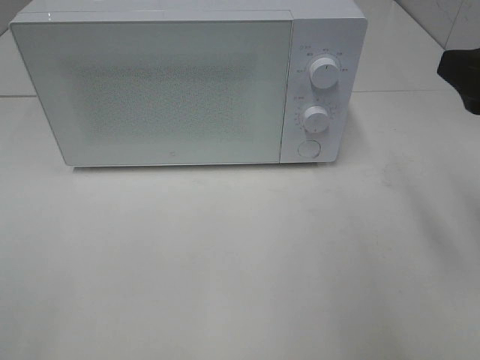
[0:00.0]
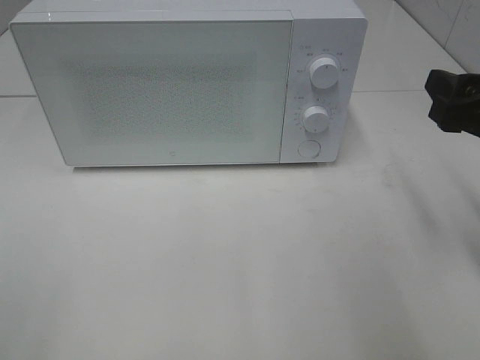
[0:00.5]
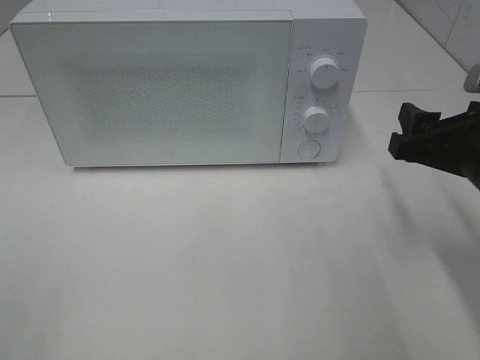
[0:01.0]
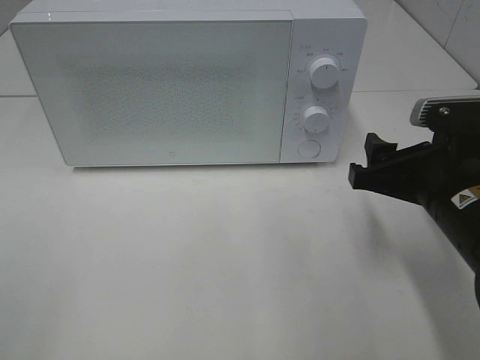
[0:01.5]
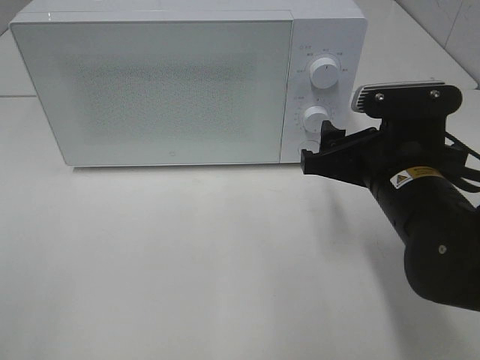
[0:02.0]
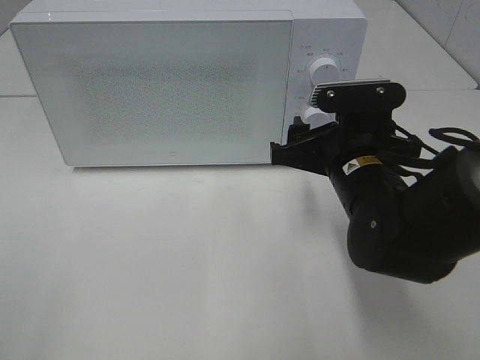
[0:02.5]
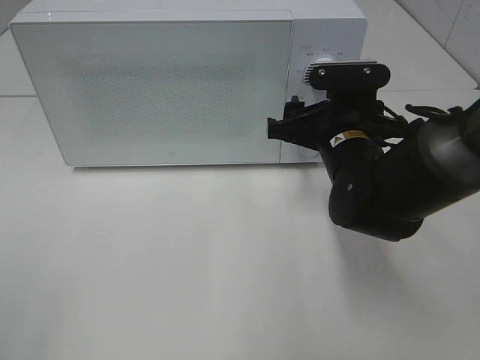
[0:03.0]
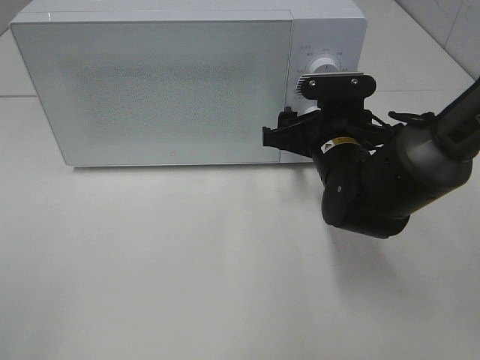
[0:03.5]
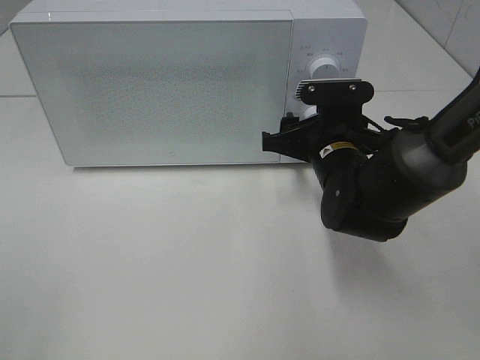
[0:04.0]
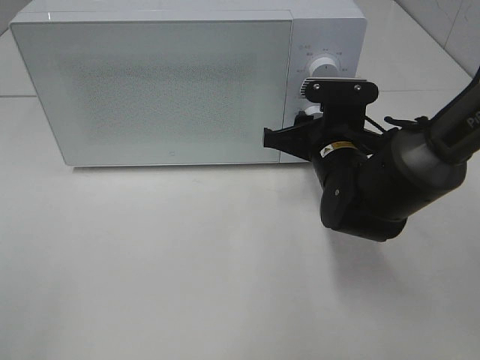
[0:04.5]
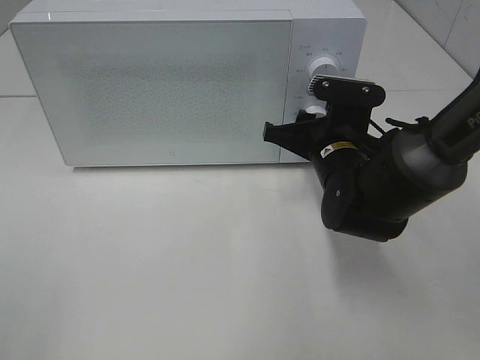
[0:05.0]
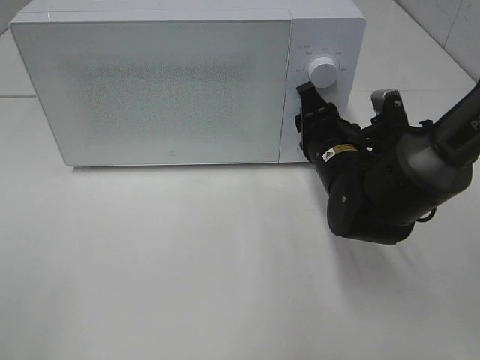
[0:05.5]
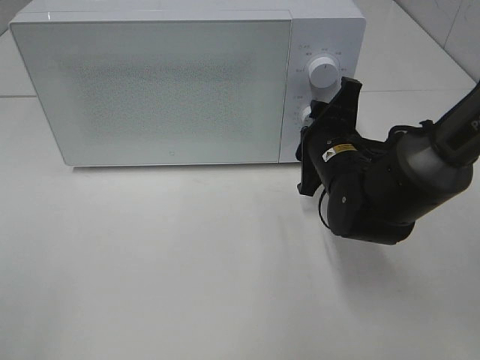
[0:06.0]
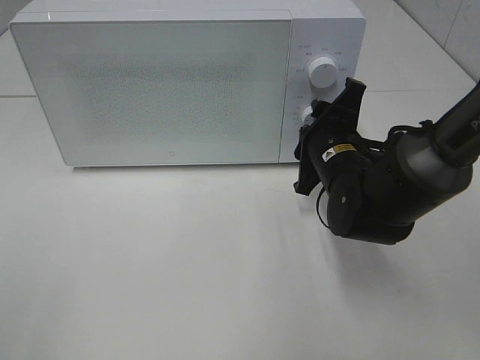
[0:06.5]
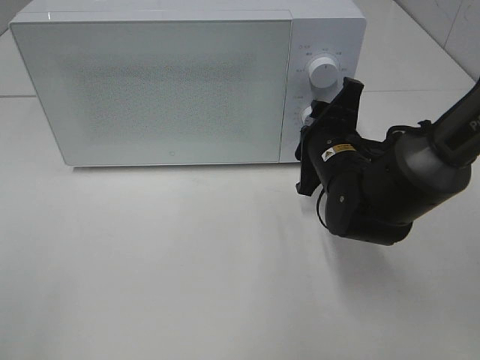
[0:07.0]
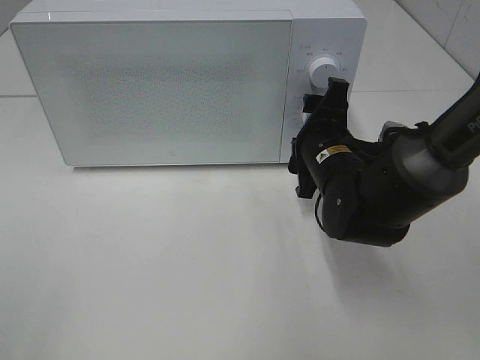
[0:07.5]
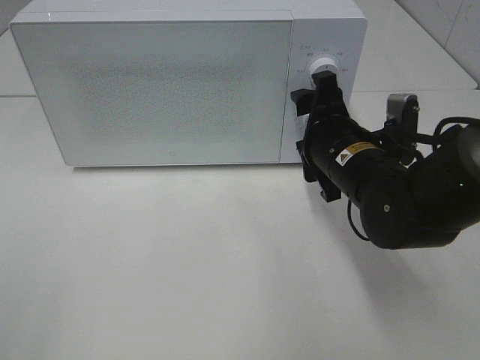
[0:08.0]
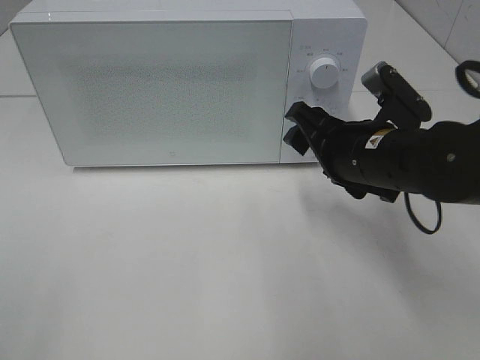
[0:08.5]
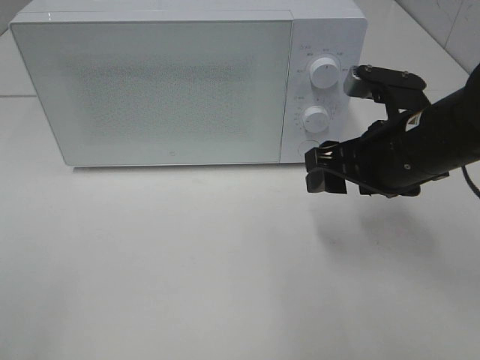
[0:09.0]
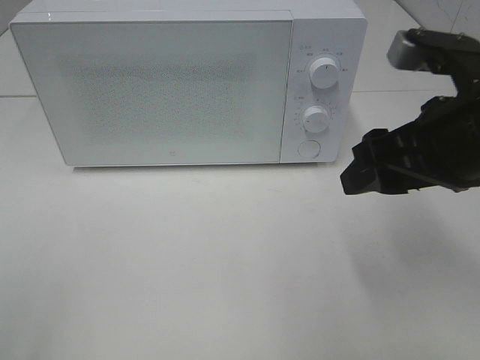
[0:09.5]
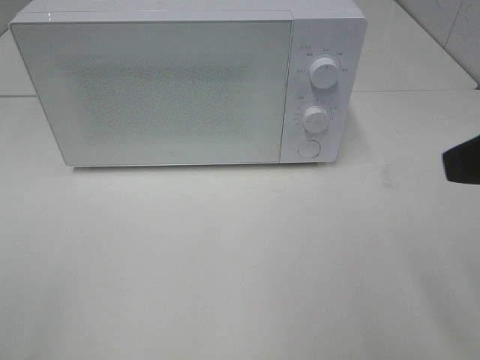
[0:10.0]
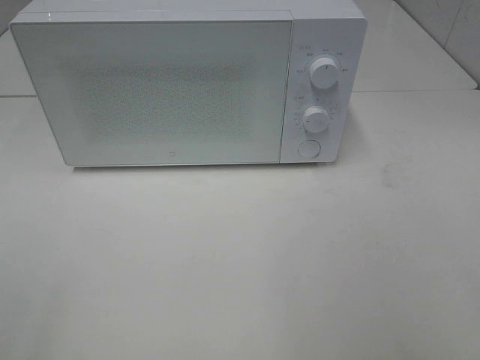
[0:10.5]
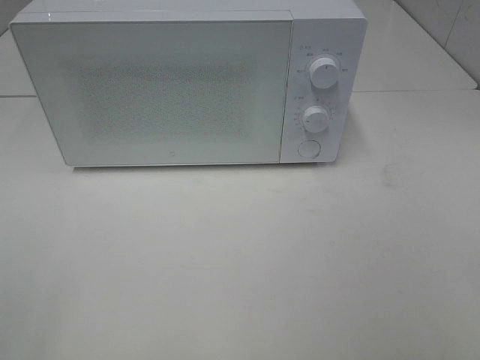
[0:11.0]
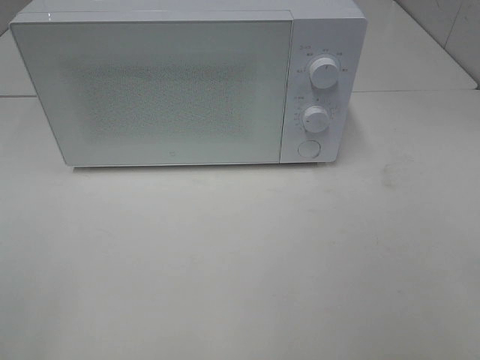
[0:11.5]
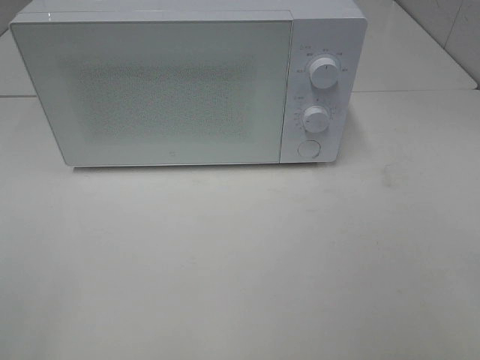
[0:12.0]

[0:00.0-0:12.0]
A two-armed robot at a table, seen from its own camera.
Task of the whole recording: Heat the burger.
Step, 0.0 to 7.0 s: Right hand: twist timer button.
0.0 to 2.0 s: The right gripper shifts roughly 15 cm downward and to the left.
2.0 to 4.0 s: The right gripper travels forward by roughly 10 cm.
8.0 to 10.0 s: The right gripper goes about 25 cm upward, backward and to the right.
10.0 to 12.0 s: The right gripper is displaced backward by about 15 cm.

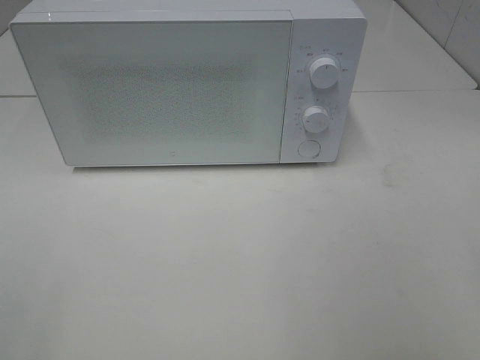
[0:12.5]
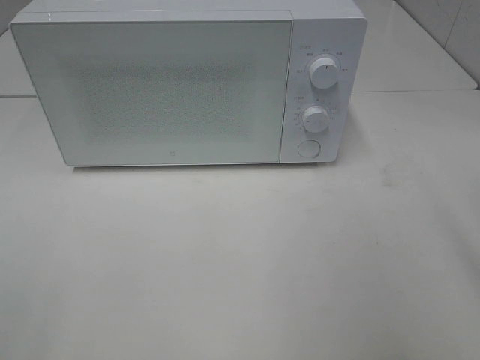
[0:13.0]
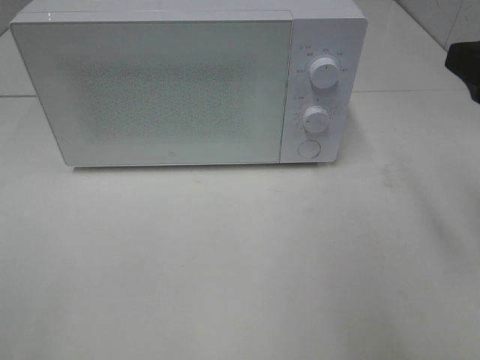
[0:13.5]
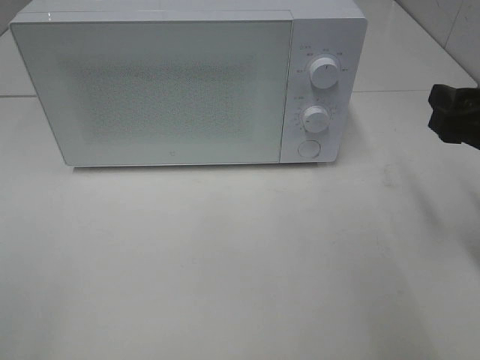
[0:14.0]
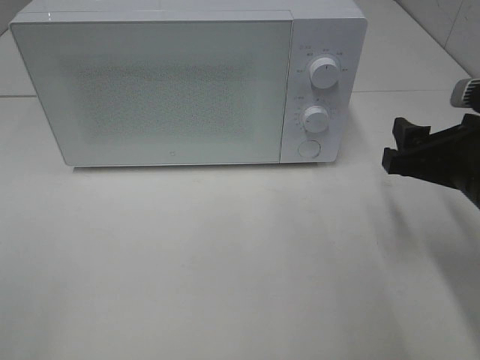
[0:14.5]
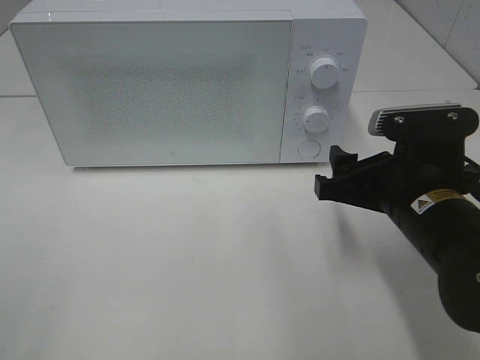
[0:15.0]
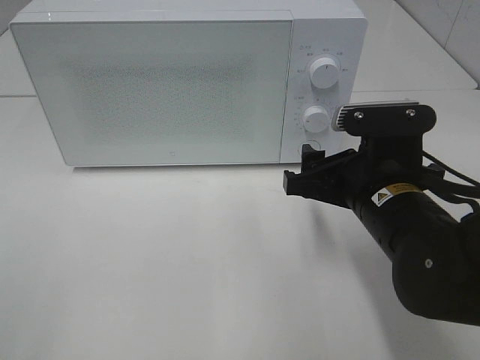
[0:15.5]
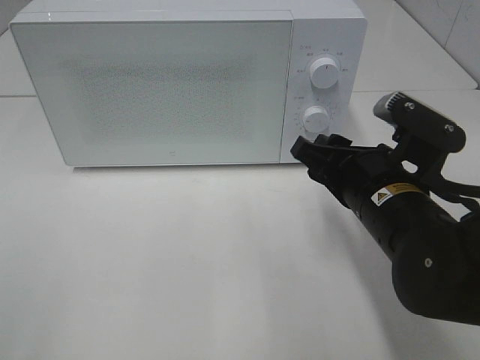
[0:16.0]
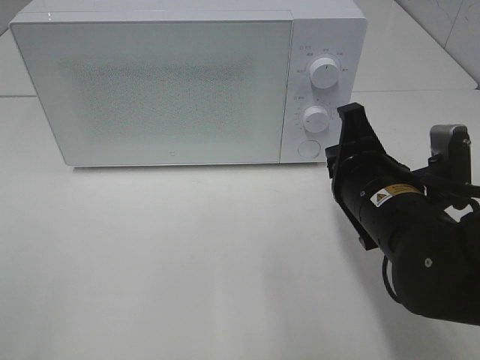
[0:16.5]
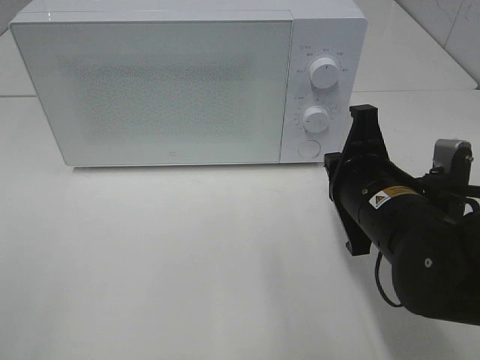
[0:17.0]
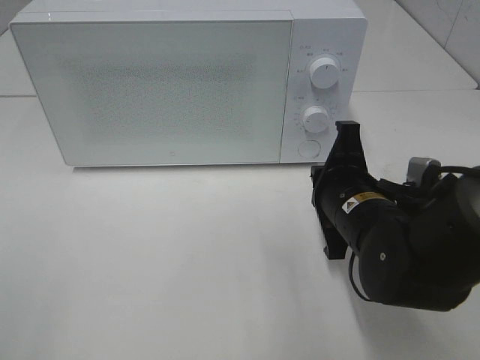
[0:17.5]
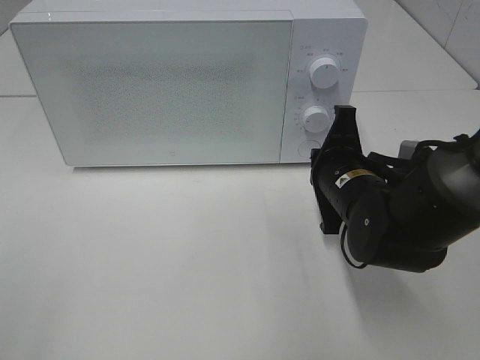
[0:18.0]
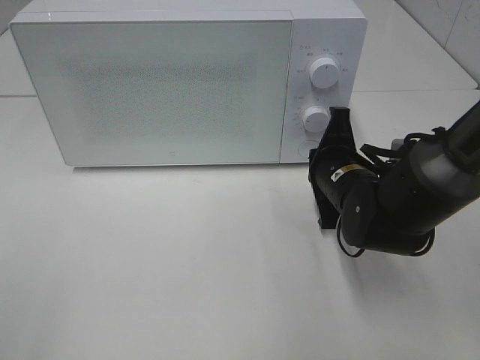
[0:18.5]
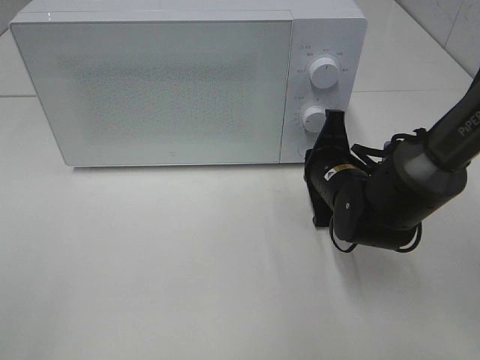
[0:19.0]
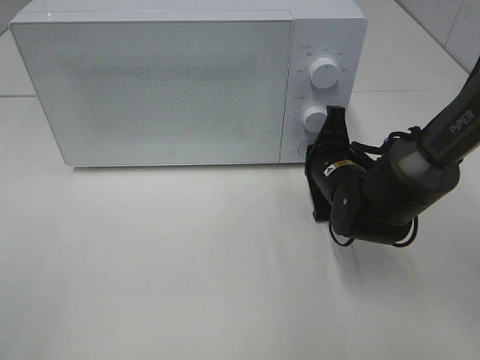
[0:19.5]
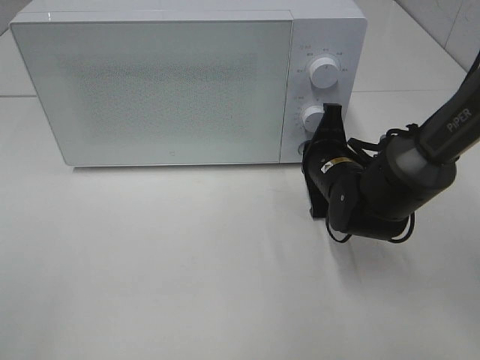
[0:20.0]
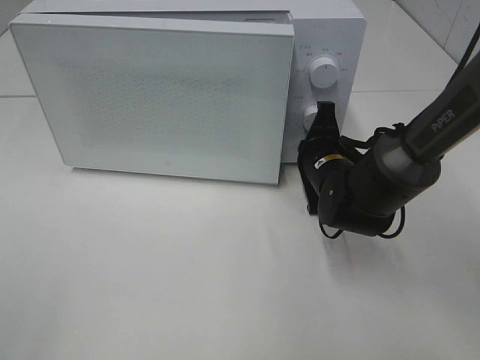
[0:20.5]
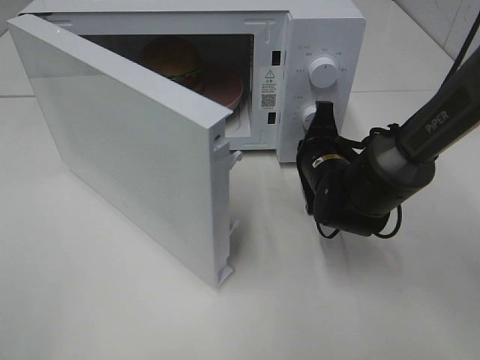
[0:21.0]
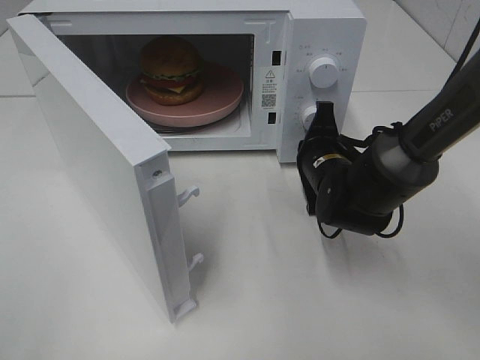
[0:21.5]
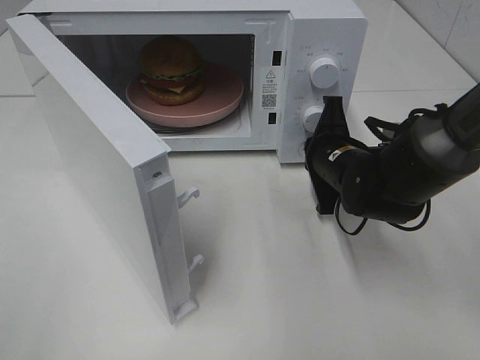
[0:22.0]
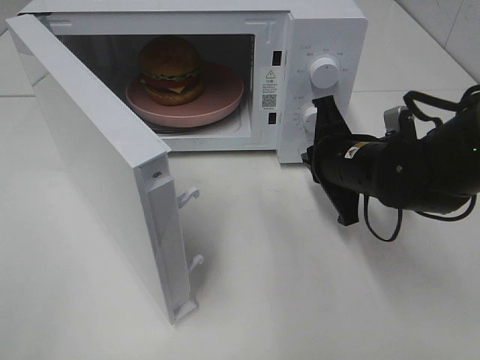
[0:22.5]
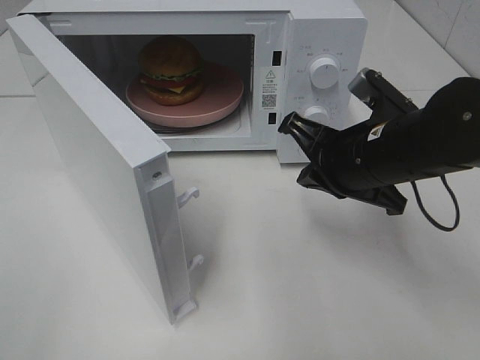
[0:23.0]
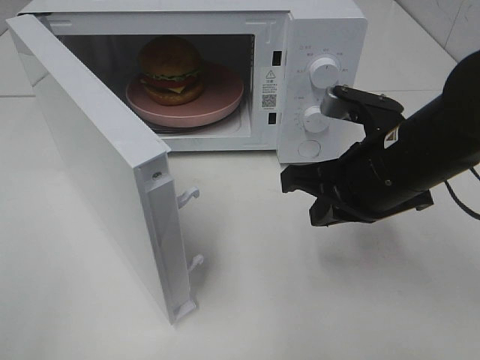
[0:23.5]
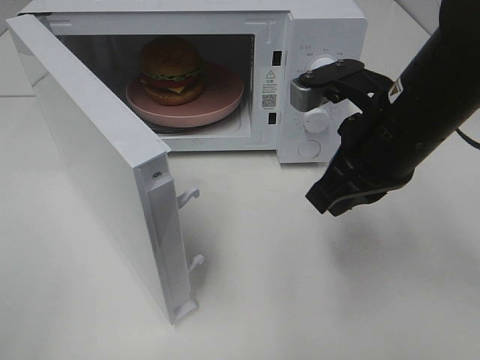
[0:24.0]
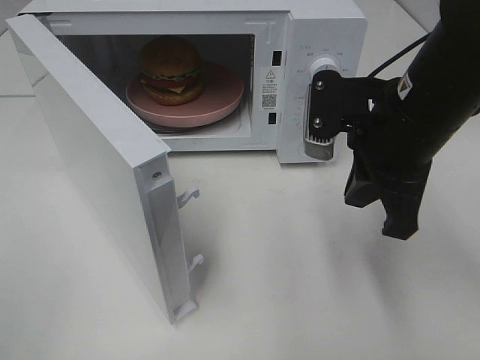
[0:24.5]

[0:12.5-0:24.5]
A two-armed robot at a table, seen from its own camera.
Task of the whole recording: Heat the burger.
Step, 12.5 to 22.0 s: Right hand: press the switch.
12.5 to 14.5 s: The right gripper is displaced forward and downward by some 20 cm.
14.5 to 16.5 s: The right gripper heads to the left, covering roughly 10 cm, and closes.
16.5 to 18.5 s: The right gripper moves forward and downward, approximately 10 cm.
18.5 to 20.5 s: The grippers move only a little.
20.5 to 22.5 s: The right gripper changes place by approximately 5 cm.
22.5 to 24.5 s: The right gripper travels upward and backward by approximately 10 cm.

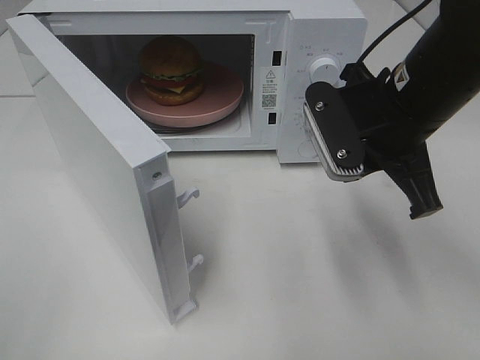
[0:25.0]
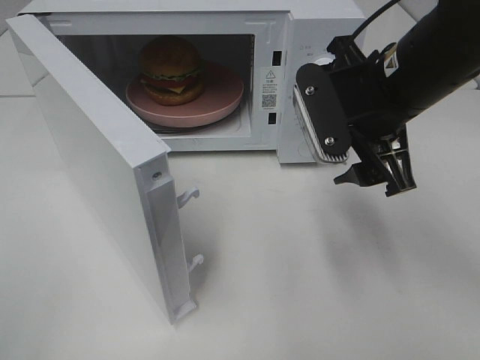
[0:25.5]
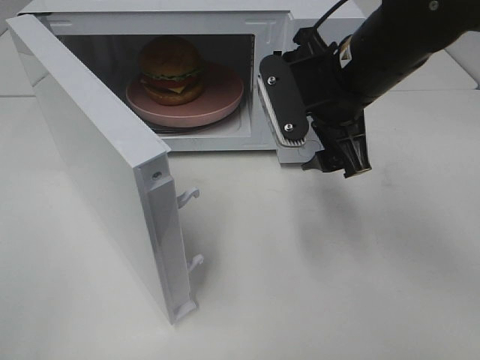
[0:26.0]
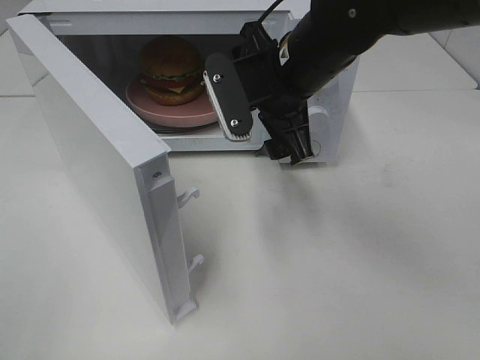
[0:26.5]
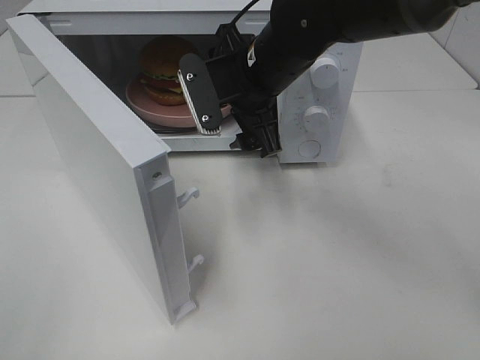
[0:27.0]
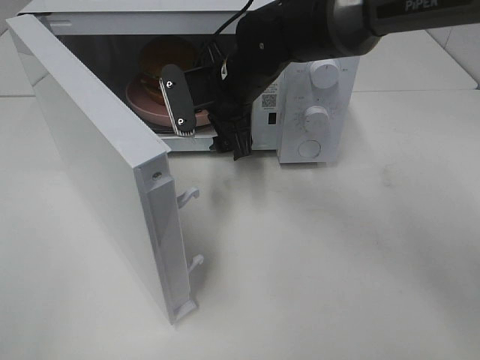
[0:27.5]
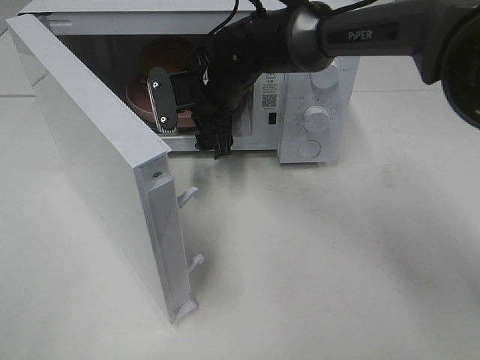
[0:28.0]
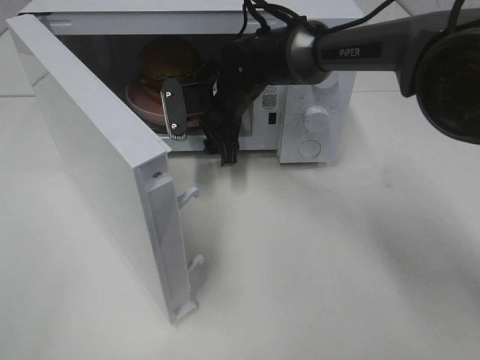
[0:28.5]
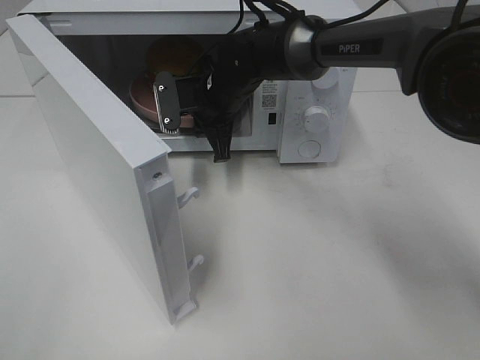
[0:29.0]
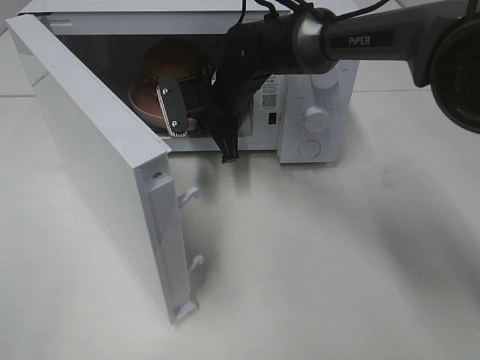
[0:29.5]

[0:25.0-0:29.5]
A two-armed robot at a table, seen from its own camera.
Task of the whole recording: Heat the burger.
Step, 25.0 to 28.5 s: Right hand: grab the plate with the hamburger.
25.0 to 27.0 s: The right gripper shifts approximately 15 cm to the left and forward, and opens up.
27.0 to 29.5 s: The right gripper goes some 10 cm forward and downward, and closes its fingers.
